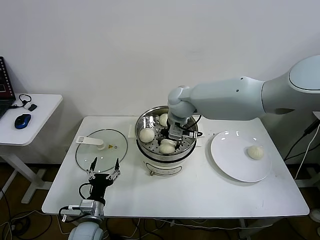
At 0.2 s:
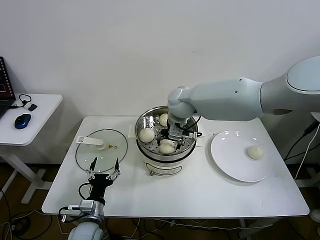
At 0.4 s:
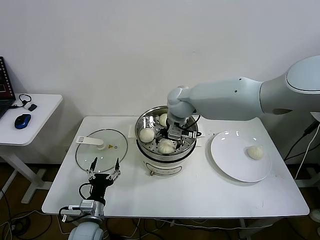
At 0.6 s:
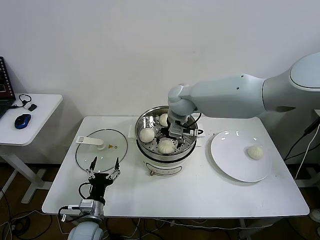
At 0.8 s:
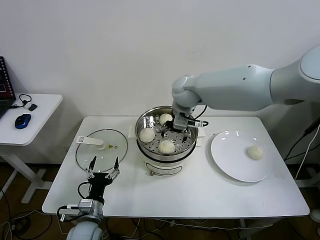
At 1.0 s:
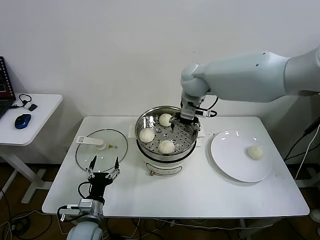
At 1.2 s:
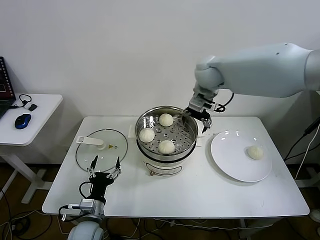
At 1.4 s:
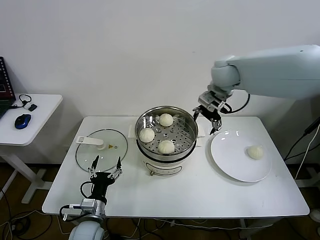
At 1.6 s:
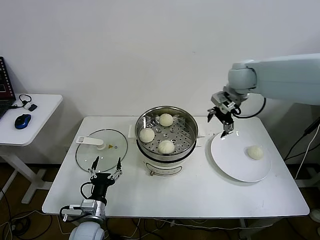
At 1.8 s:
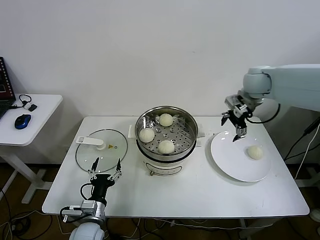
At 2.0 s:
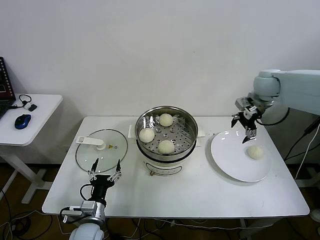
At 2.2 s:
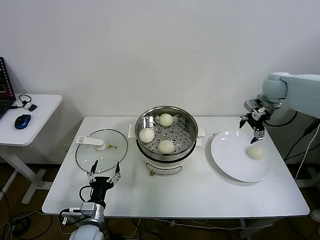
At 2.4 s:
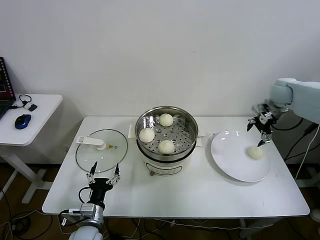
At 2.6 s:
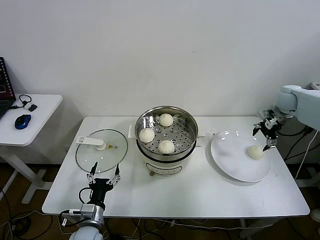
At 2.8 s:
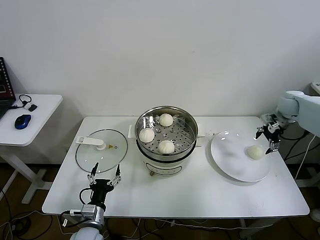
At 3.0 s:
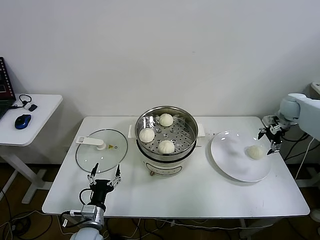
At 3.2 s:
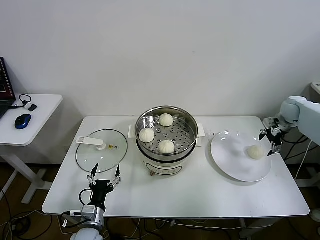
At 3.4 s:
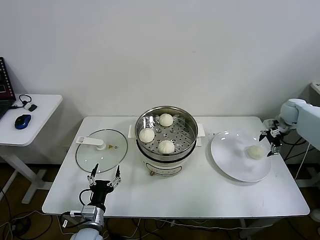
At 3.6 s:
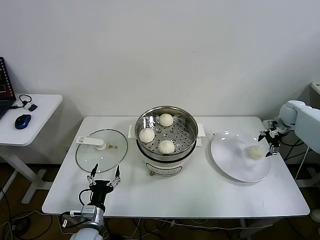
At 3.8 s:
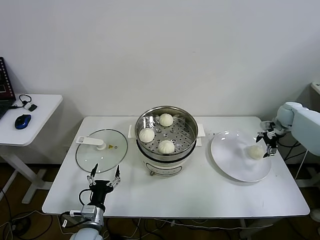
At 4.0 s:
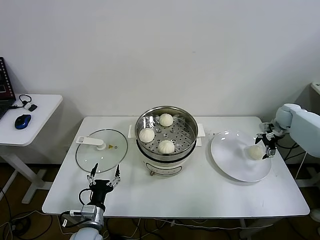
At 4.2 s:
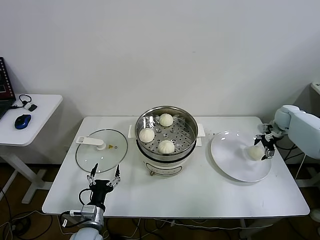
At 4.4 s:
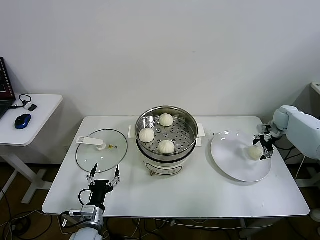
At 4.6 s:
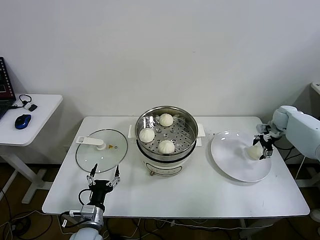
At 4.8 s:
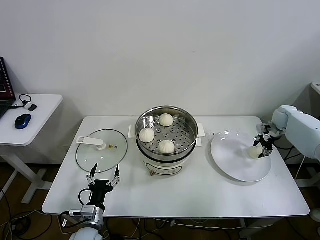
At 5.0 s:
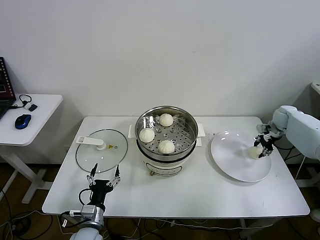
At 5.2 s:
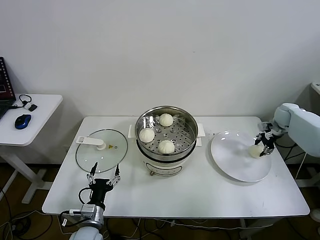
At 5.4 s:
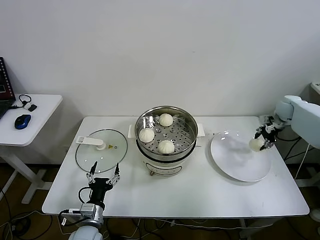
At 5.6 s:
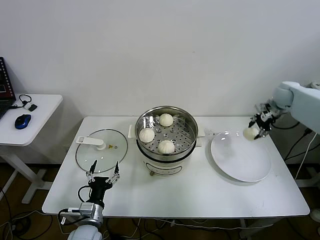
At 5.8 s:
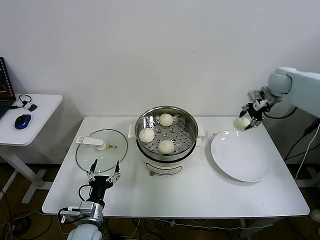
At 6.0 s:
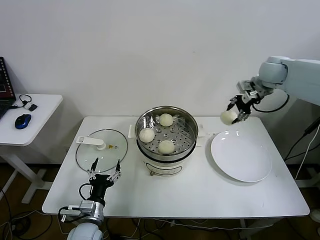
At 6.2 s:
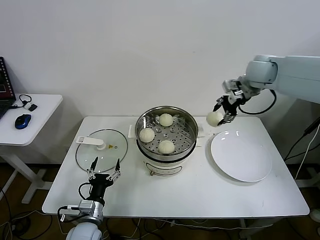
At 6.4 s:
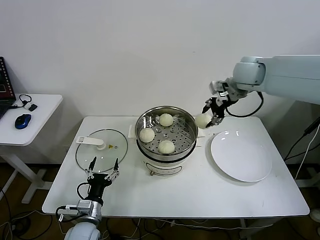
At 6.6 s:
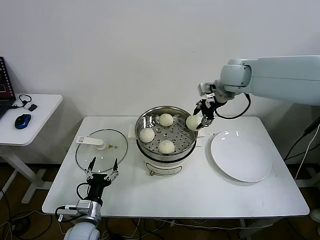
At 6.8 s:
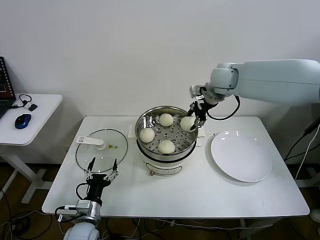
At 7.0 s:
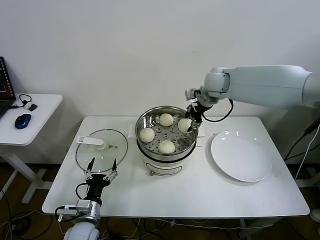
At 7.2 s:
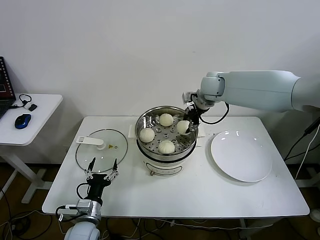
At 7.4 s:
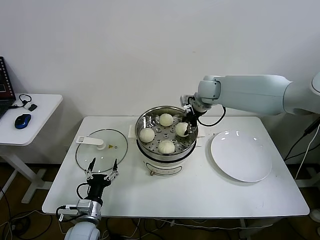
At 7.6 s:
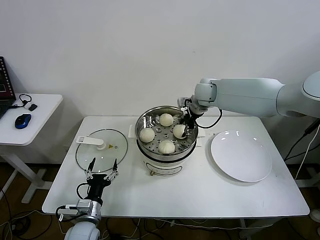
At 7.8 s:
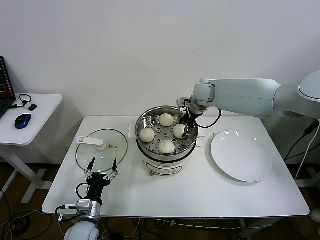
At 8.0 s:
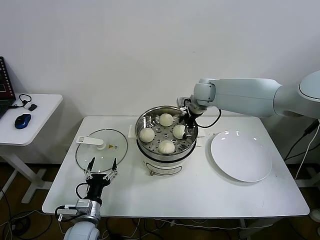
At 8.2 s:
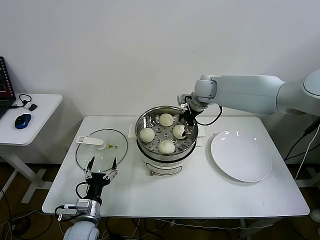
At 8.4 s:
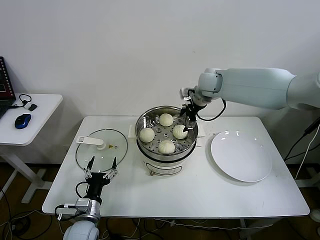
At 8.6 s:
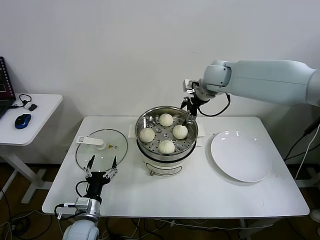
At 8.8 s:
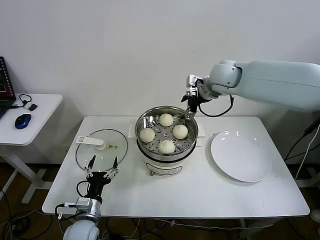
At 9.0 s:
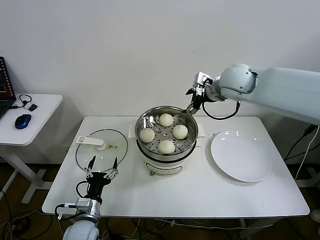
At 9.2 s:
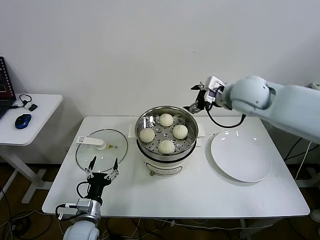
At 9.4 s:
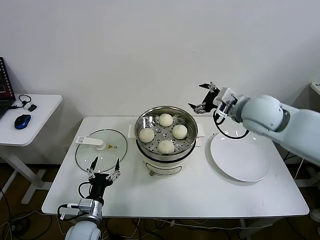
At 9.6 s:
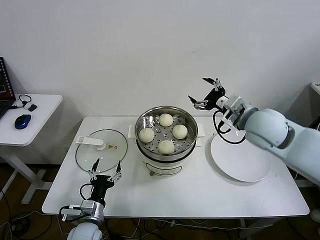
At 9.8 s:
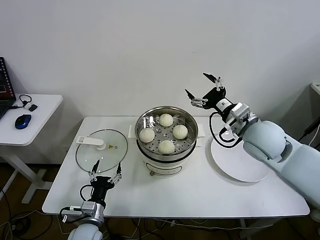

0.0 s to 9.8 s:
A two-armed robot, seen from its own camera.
Step, 0.4 to 4.8 s: Grasp the baozi in the plate with right gripper.
Step, 5.0 to 8.0 s: Place the baozi on the steamer with right gripper.
0.0 to 1.4 s: The right gripper travels to the right and upward by roughly 15 cm, and opens its fingers.
1.4 to 2.8 s: The right gripper shifts roughly 30 cm to the right and downward.
2.8 to 4.2 s: The right gripper is displaced downward by some 10 cm.
4.2 to 5.6 s: The right gripper travels upward by some 10 cm, and closes up.
5.6 to 7.0 s: The right gripper goes roughly 30 cm to the left.
7.0 to 8.4 s: The right gripper opens its fingers.
8.4 to 9.8 s: The right gripper travels backward by some 20 cm.

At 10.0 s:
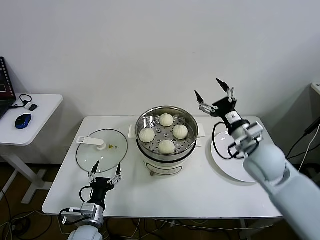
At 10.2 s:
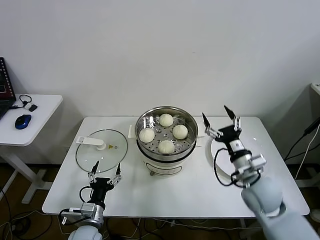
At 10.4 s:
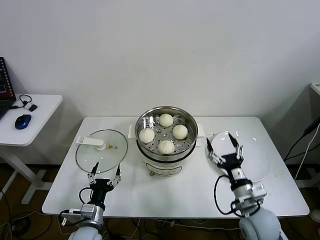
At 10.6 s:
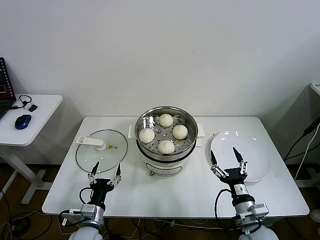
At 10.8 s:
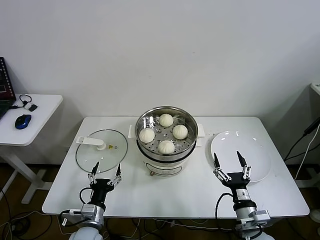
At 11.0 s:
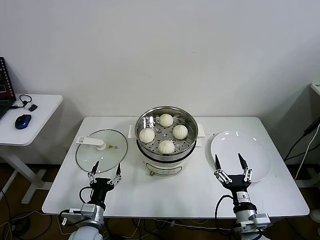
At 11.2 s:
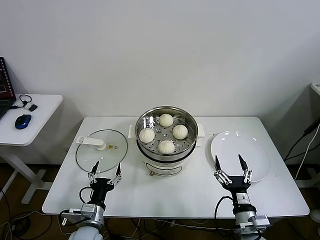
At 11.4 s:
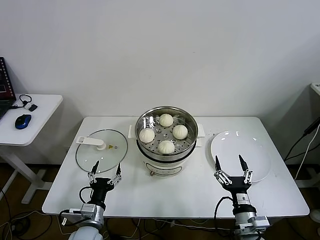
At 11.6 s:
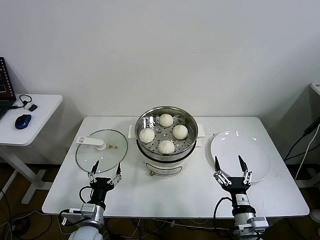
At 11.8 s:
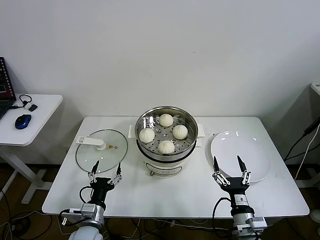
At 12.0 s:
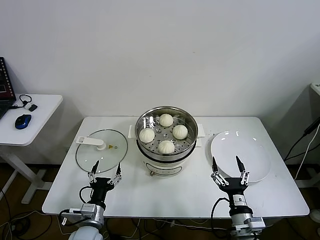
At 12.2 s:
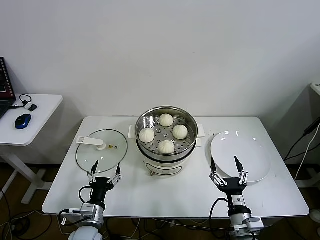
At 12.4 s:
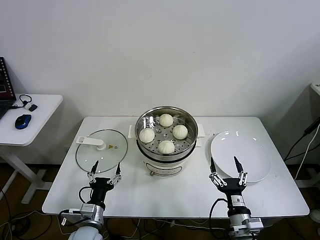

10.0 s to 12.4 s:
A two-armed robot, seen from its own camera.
10.0 to 11.2 s: The right gripper goes some 25 cm backward and downward.
11.2 to 12.4 s: The grippers move only a little.

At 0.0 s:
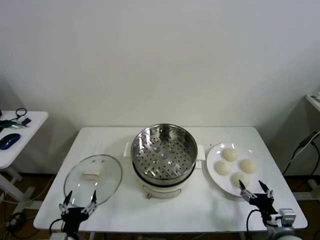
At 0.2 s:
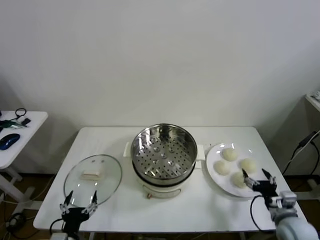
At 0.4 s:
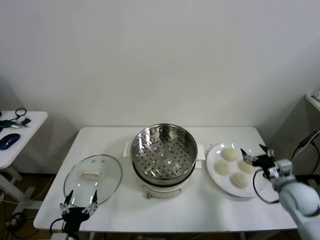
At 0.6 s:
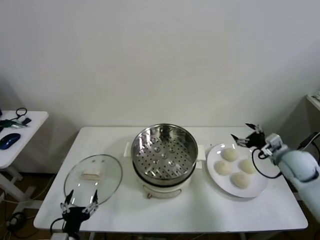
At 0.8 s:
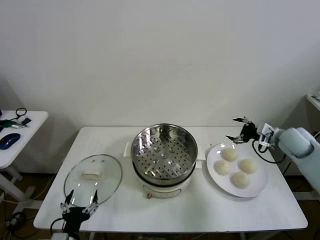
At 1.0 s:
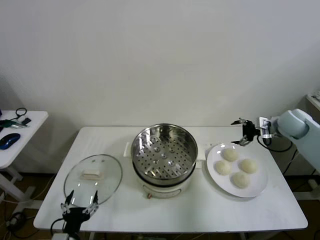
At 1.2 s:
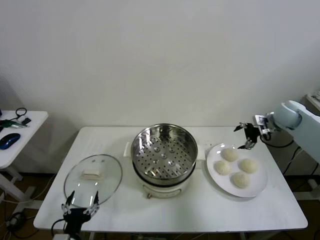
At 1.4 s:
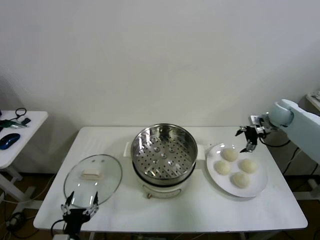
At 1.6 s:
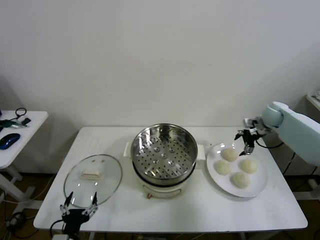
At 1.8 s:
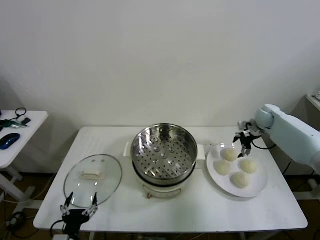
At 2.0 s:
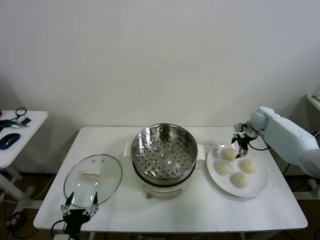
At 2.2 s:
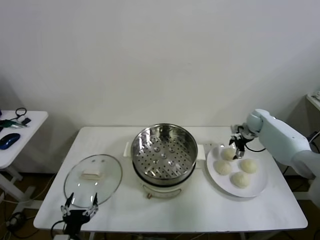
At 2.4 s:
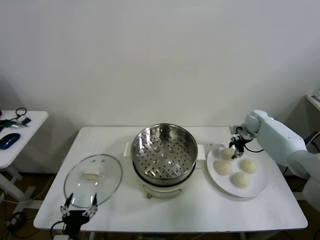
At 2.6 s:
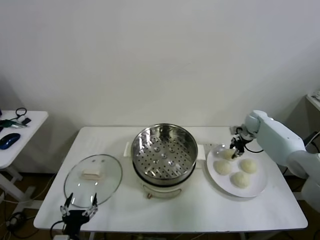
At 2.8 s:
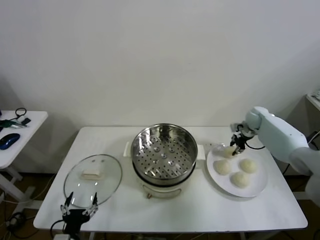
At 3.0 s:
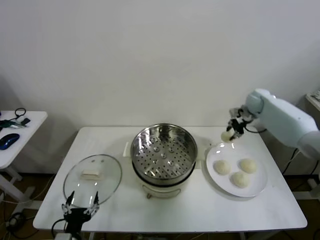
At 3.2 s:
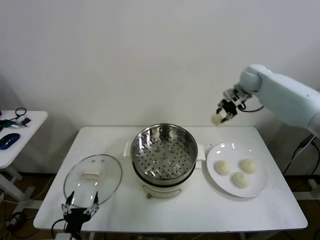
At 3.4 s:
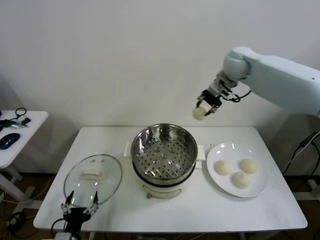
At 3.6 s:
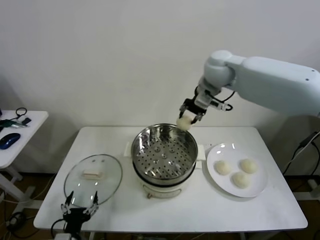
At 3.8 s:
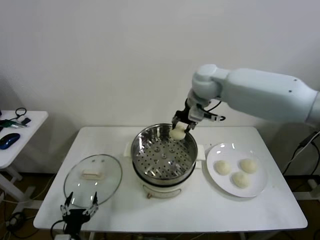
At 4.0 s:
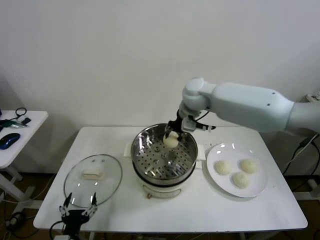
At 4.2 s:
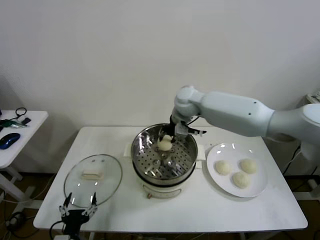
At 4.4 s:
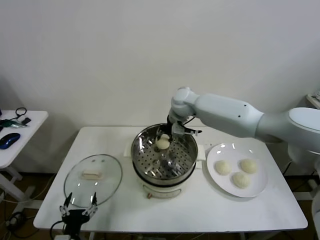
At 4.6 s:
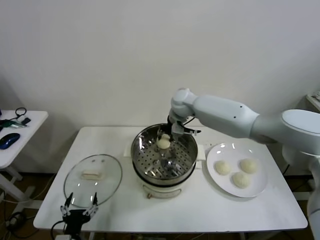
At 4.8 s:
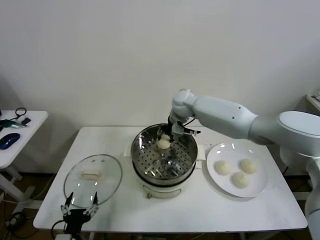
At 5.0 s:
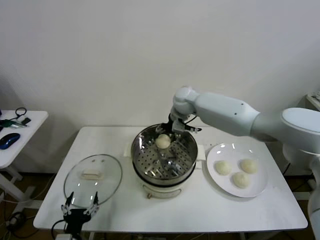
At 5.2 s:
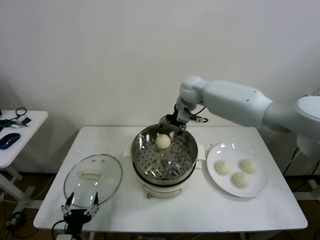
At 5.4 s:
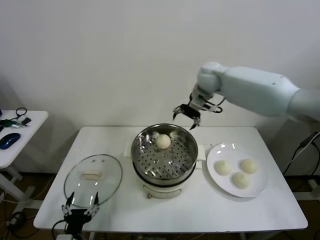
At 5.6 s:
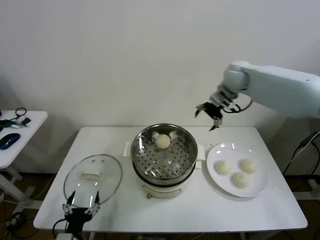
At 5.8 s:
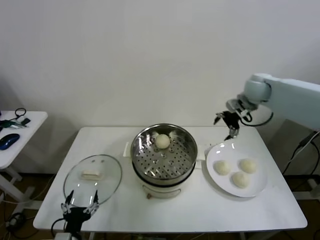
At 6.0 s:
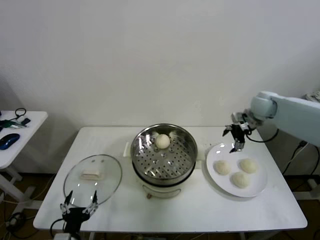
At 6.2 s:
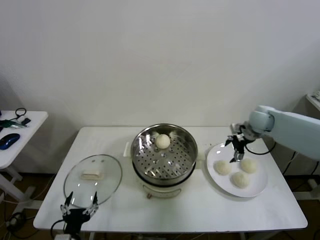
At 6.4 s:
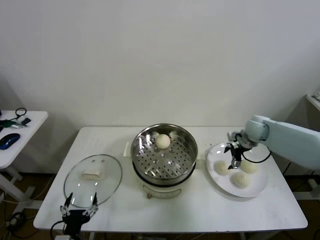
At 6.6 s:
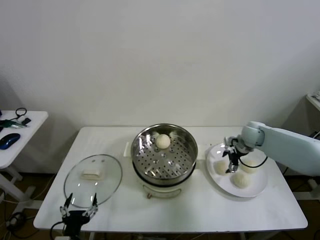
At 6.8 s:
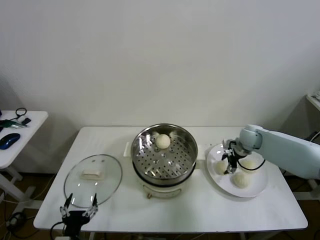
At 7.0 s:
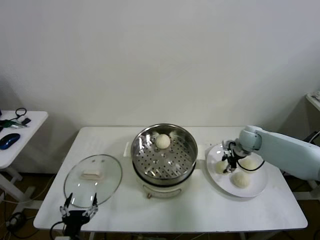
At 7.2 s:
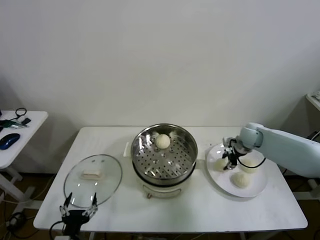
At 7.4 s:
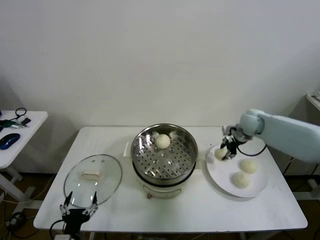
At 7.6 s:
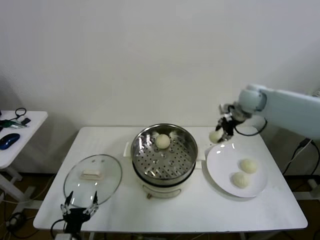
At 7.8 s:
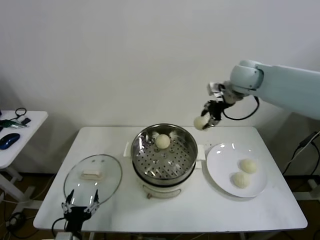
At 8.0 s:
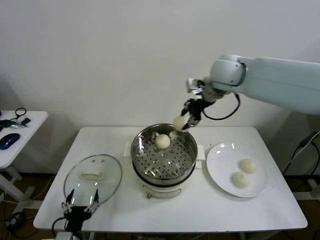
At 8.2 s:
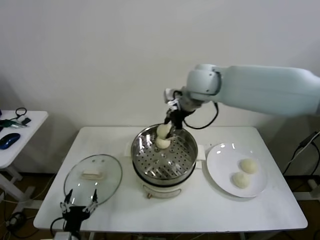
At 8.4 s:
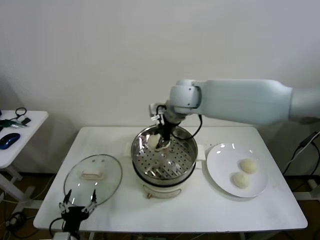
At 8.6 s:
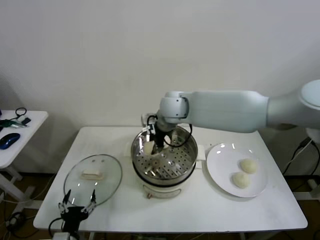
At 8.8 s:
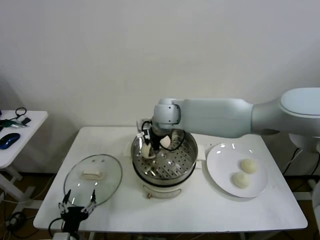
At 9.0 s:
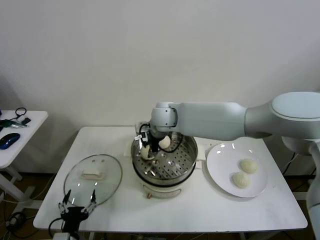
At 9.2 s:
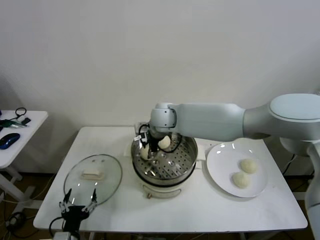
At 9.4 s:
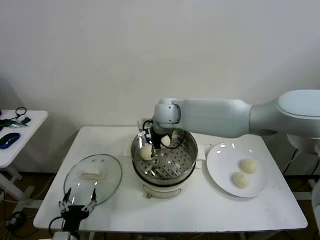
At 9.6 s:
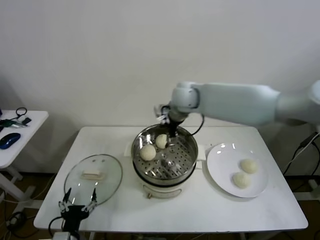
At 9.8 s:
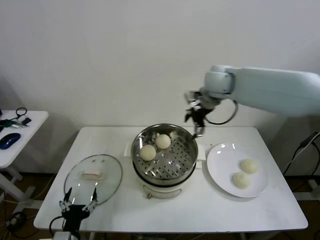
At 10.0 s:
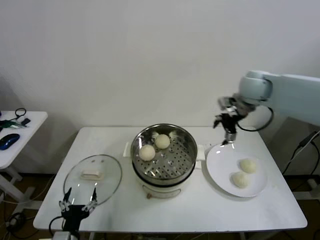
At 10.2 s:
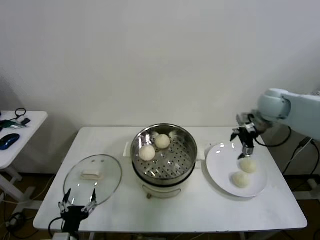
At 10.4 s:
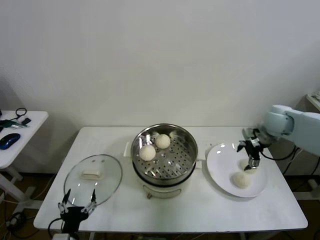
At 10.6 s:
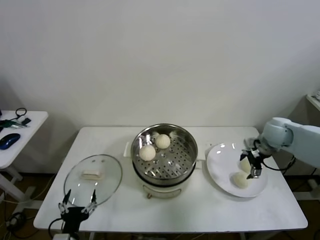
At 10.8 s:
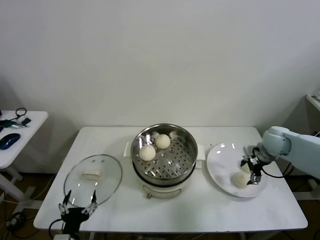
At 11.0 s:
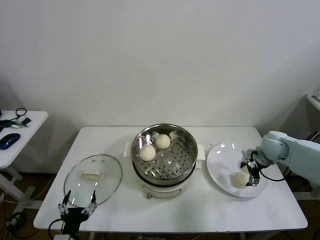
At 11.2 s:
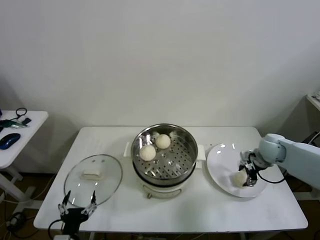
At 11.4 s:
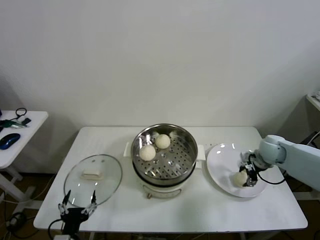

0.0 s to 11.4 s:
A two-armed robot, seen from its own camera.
Step, 0.0 to 2.4 s: Grasp the baozi in the plate with right gripper.
Step, 2.6 to 5.0 s: Place the baozi on the steamer with right gripper.
Step, 5.2 to 7.0 s: Grasp the baozi in the plate with right gripper.
Step, 7.2 to 9.2 s: Place the baozi on the steamer with right gripper.
1.4 to 2.8 s: The right gripper moves downward and forward, some 10 cm, and closes.
2.8 to 4.2 s: The right gripper shifts roughly 30 cm to the left.
4.2 to 5.6 s: The right gripper moves to the right and upward, approximately 20 cm, and opens.
5.6 to 7.2 s: The right gripper goes some 20 cm downward, and closes up.
7.2 to 8.6 s: The right gripper travels to the left and upward by roughly 35 cm.
8.6 to 10.0 s: The right gripper is displaced to the right by about 25 cm, and opens.
10.0 to 11.4 s: The right gripper goes about 25 cm downward and to the right, and closes up.
